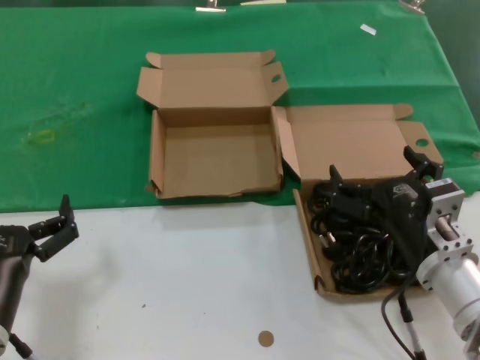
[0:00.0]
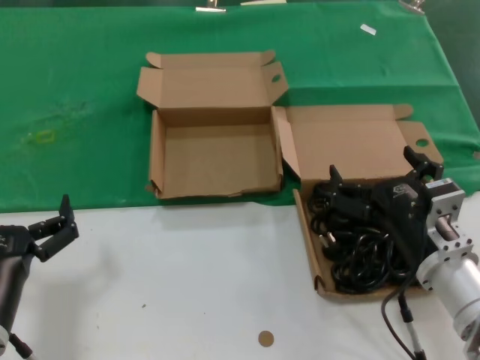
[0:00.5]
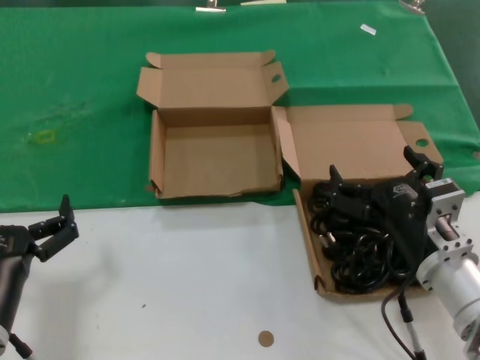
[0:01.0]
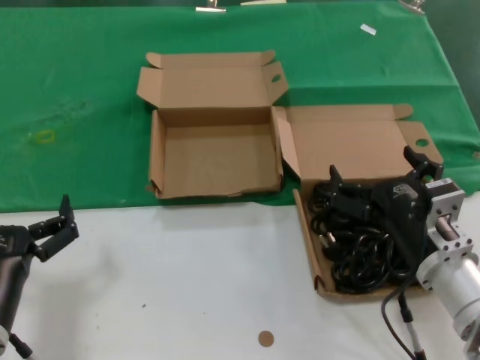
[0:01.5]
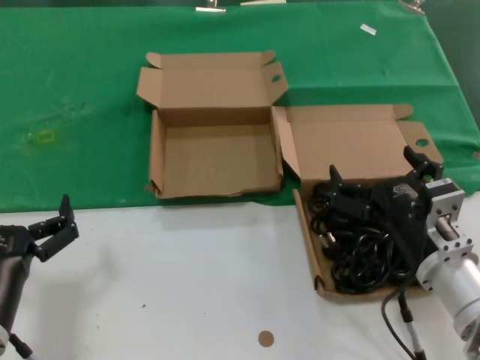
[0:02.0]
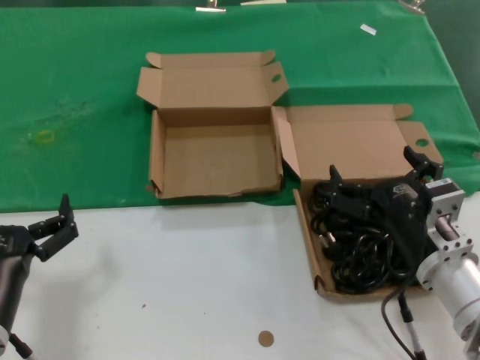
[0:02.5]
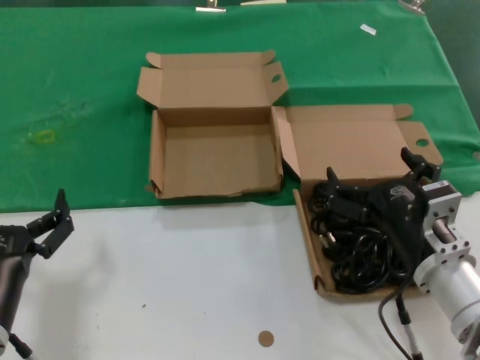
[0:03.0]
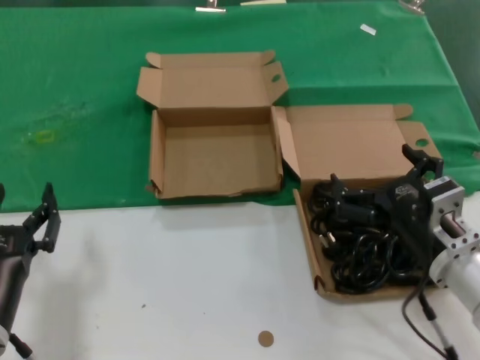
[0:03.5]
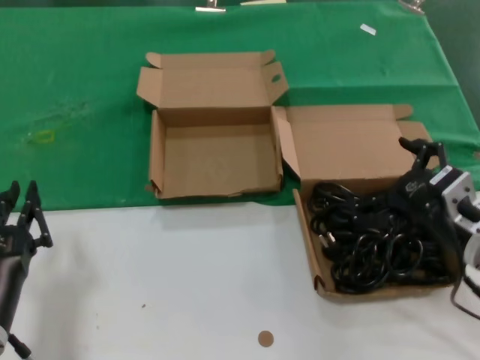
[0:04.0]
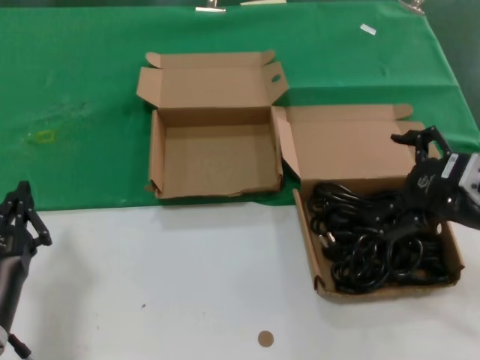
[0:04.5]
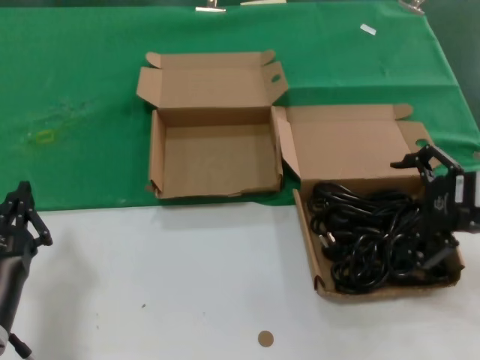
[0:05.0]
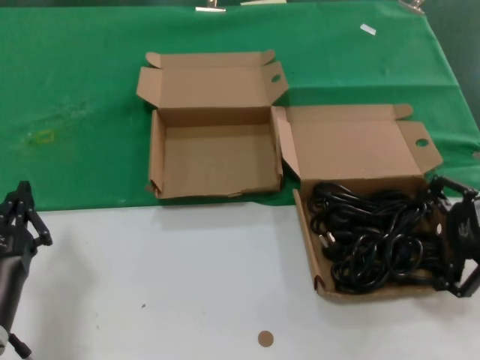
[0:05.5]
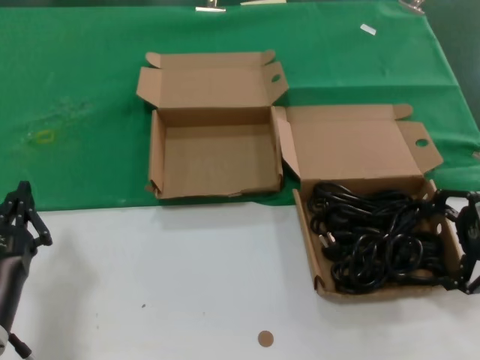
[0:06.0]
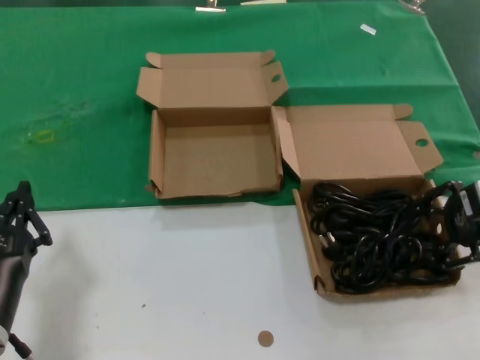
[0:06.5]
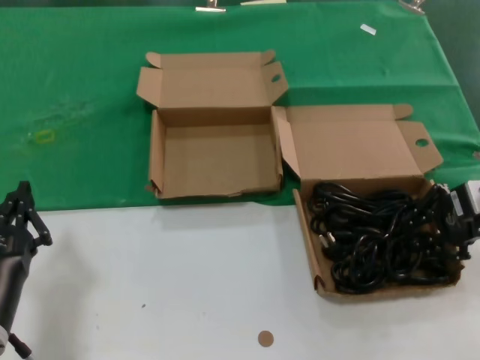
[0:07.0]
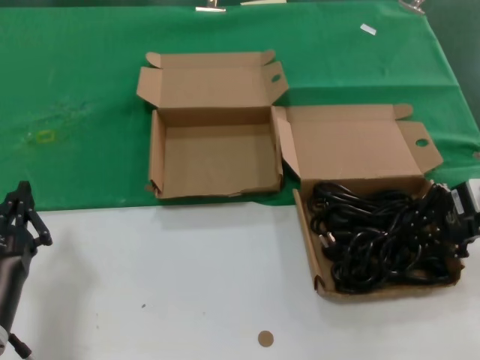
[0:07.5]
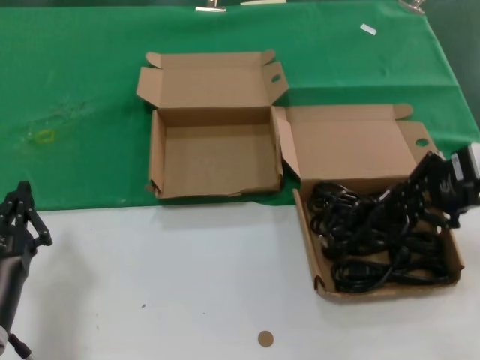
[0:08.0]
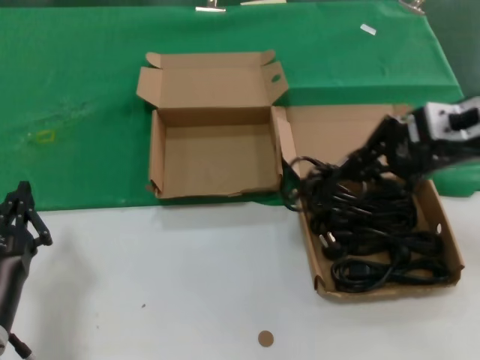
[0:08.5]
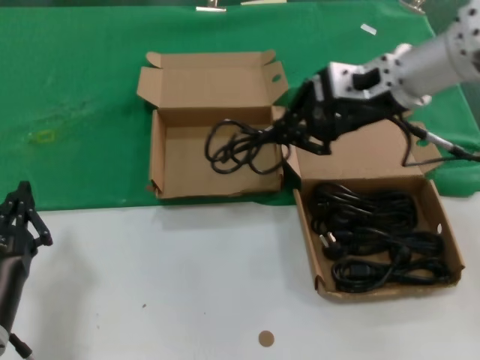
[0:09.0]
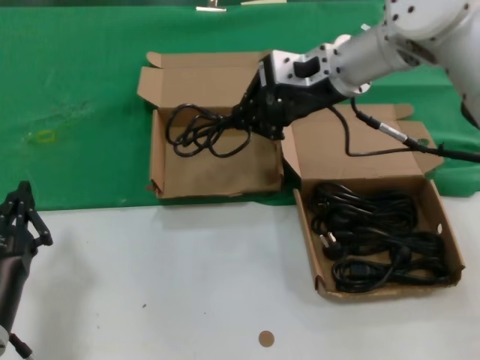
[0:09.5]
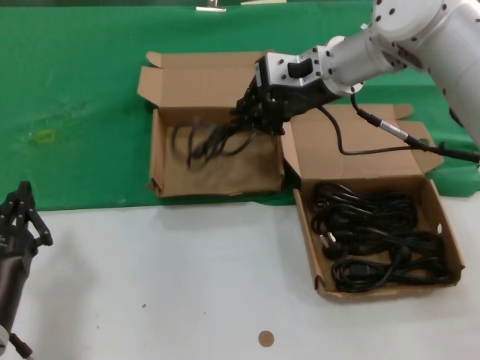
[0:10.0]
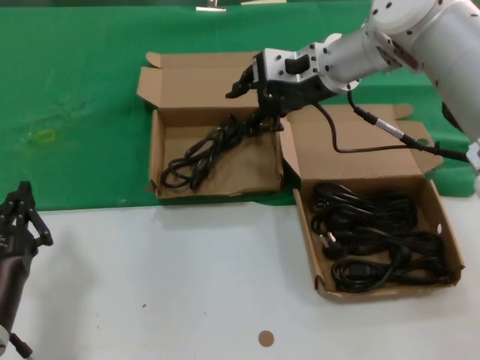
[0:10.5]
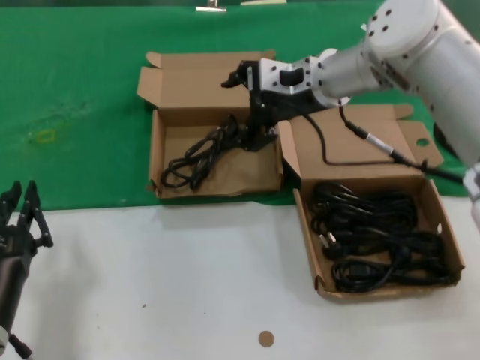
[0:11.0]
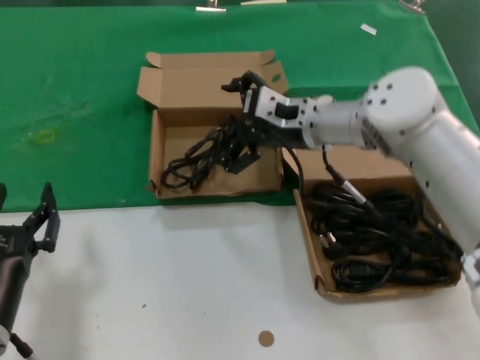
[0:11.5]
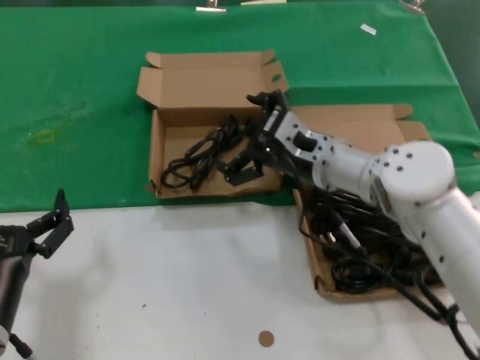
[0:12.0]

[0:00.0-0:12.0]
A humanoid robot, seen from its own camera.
Task of the whole recording: take the parts from the box containing them and put them into an empty box.
Step, 0.0 to 7.5 s: Grasp the data cable.
Step, 8.0 to 10.0 s: Place the data cable in the another box.
0.0 to 2.0 s: The two hands keep their place.
2.0 to 4.0 s: The right hand travels to the right by some 5 cm.
4.0 to 6.0 s: The right hand heads upward and to the right, covering approximately 15 cm.
6.0 to 8.0 s: The right hand changes place by approximately 5 cm.
8.0 to 10.0 s: The right hand is displaced to the left and forward by about 25 cm.
10.0 to 12.0 s: The right hand moves downward and backward, about 15 cm.

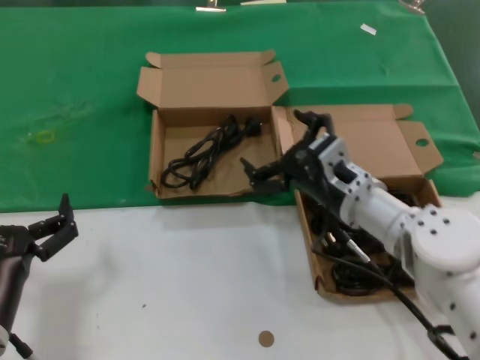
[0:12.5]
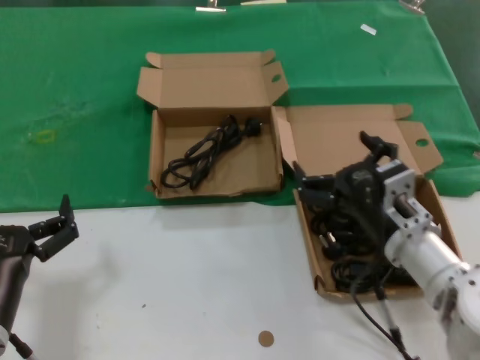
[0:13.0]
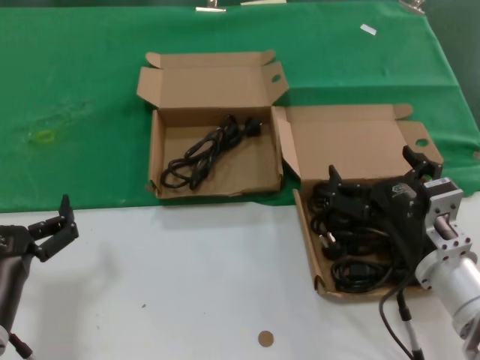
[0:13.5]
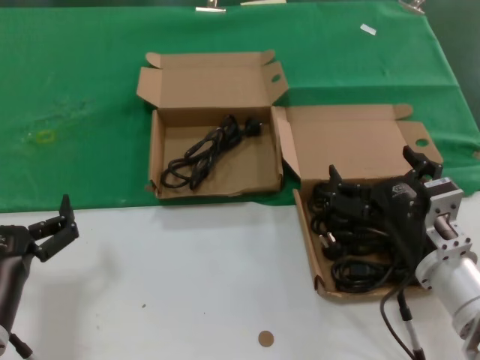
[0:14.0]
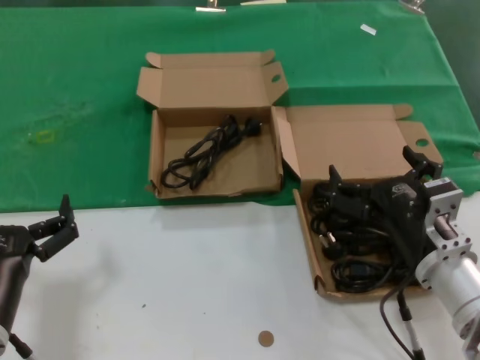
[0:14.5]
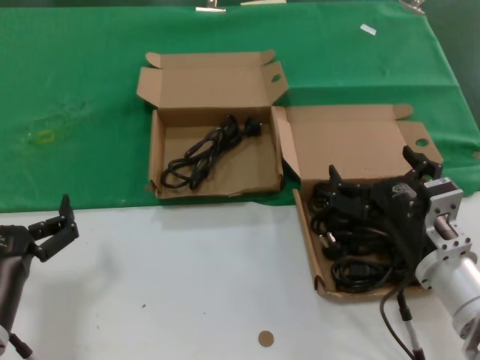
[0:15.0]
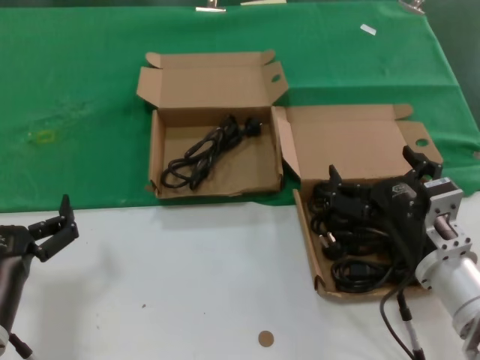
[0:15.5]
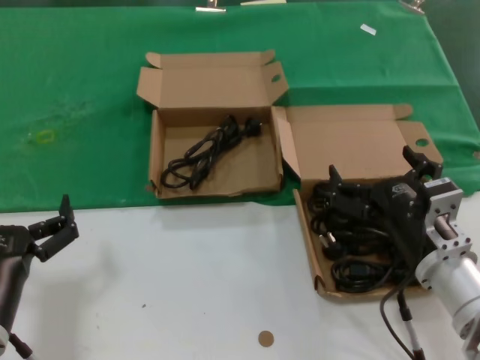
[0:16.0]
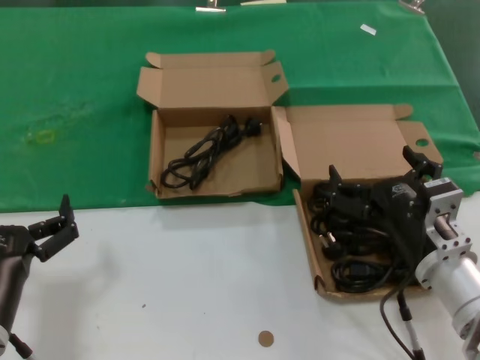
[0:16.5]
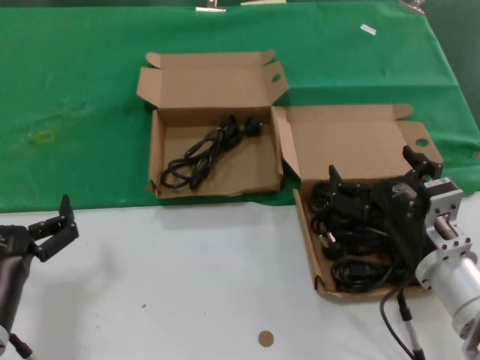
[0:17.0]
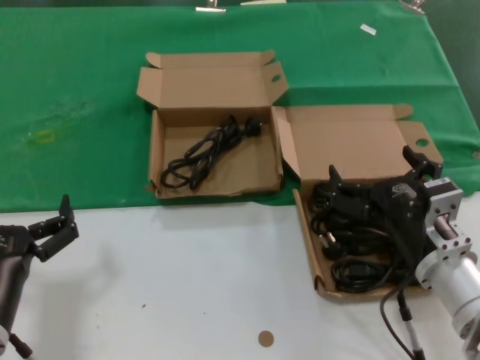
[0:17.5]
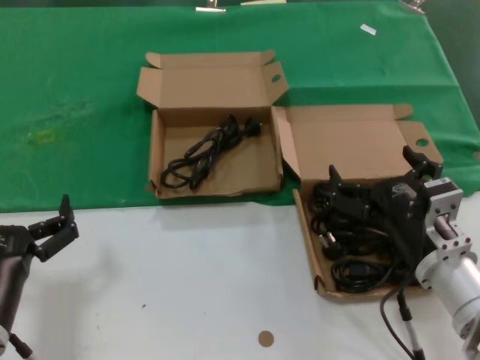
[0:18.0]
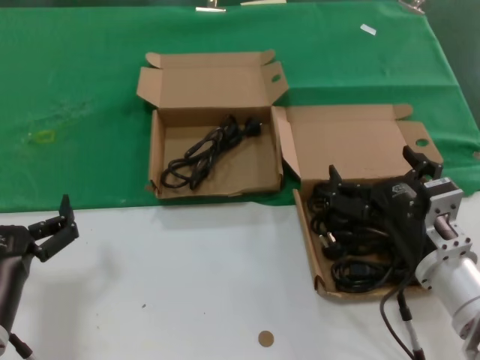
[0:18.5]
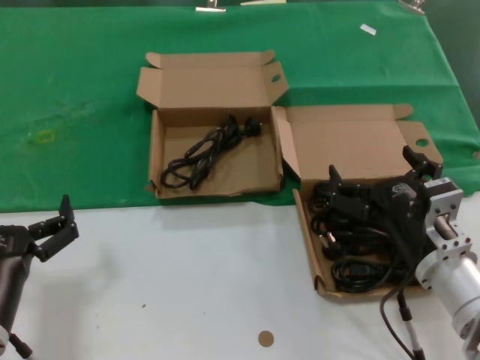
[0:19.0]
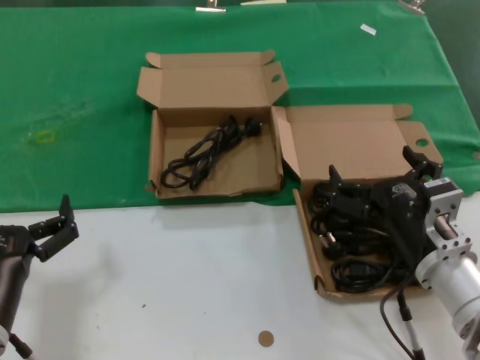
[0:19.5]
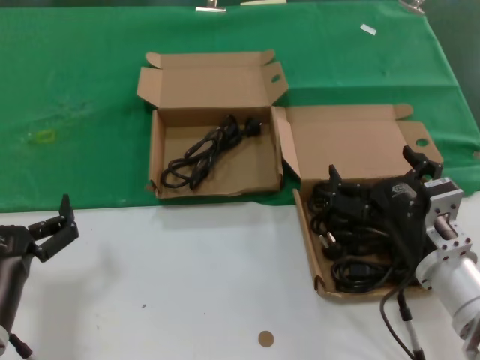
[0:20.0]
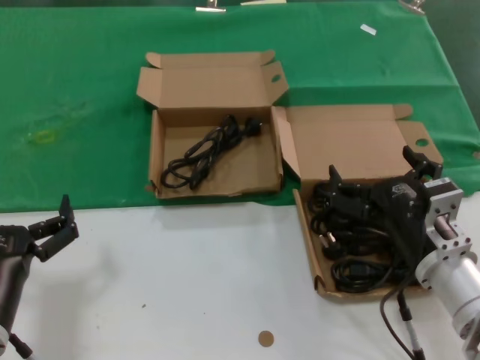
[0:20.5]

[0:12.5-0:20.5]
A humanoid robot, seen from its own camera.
Task of the whole recording: take the parts from the box containing them and put them into an empty box.
12.5 to 14.5 s: The right hand goes approximately 15 cm backward and to the right.
14.5 to 20.5 s: Neither hand changes place.

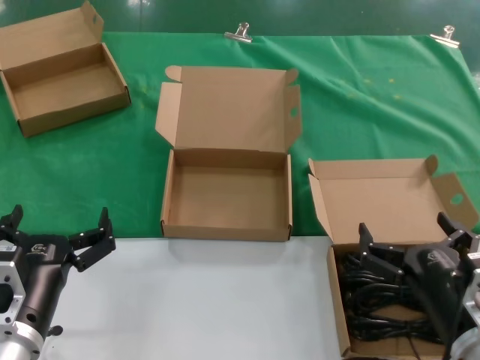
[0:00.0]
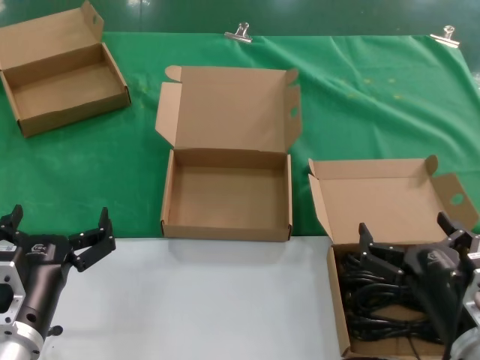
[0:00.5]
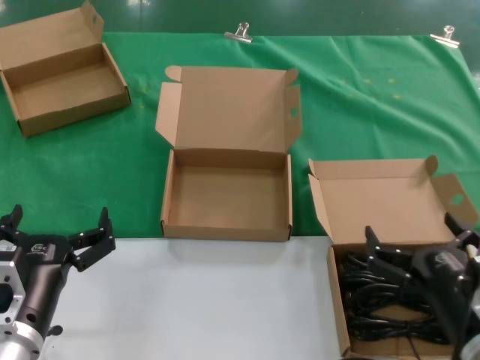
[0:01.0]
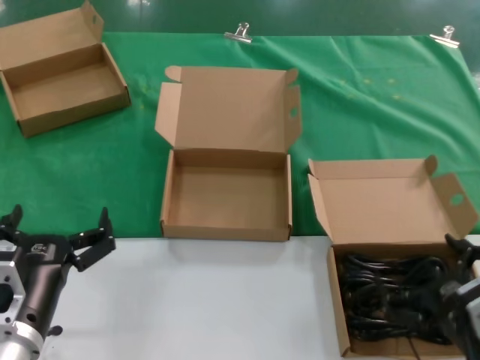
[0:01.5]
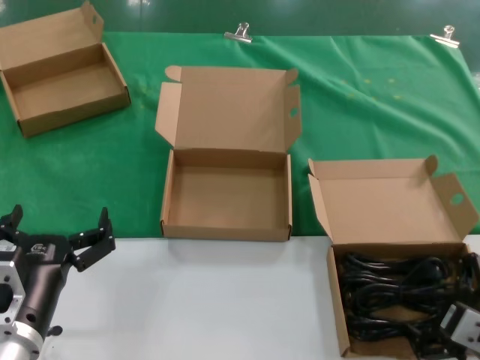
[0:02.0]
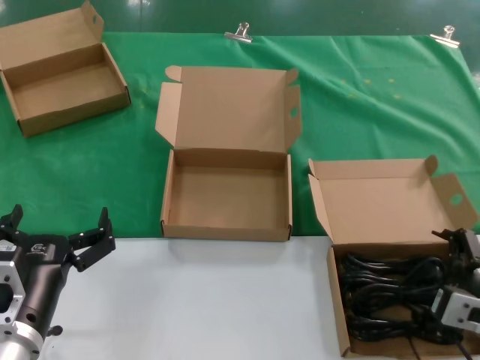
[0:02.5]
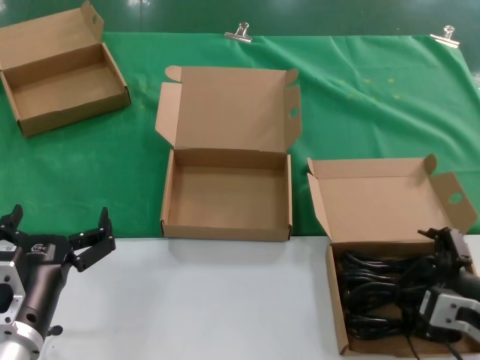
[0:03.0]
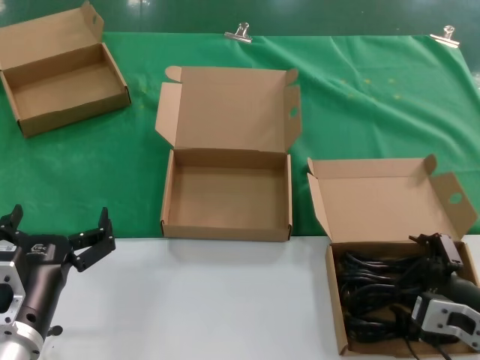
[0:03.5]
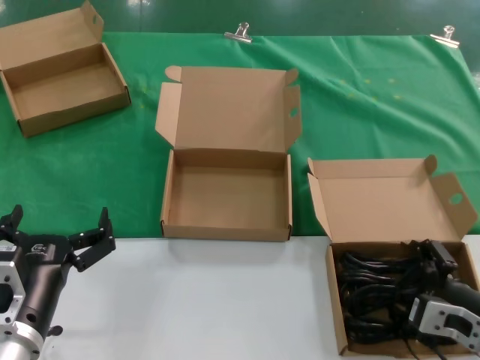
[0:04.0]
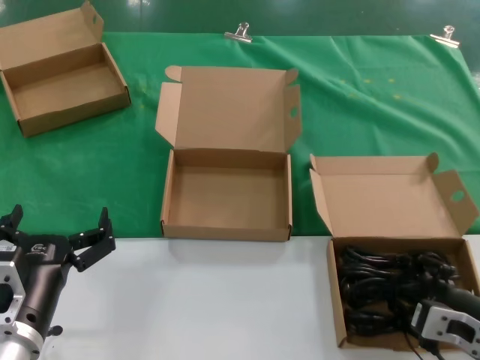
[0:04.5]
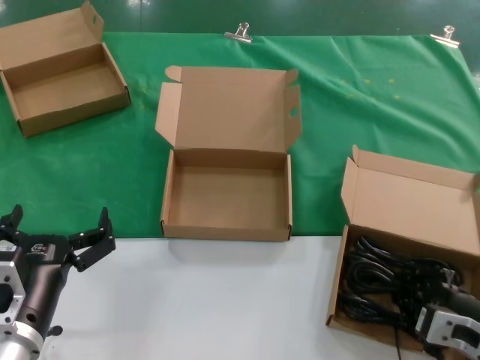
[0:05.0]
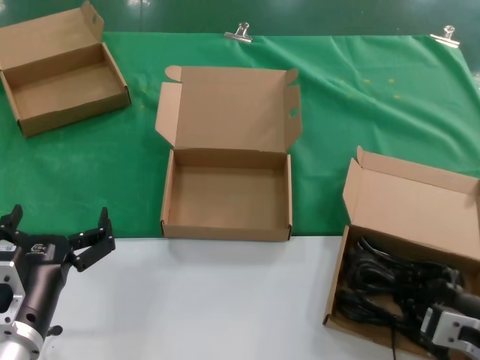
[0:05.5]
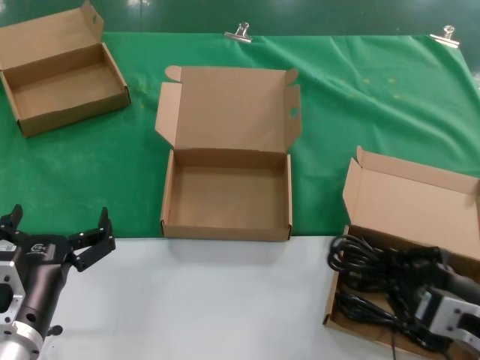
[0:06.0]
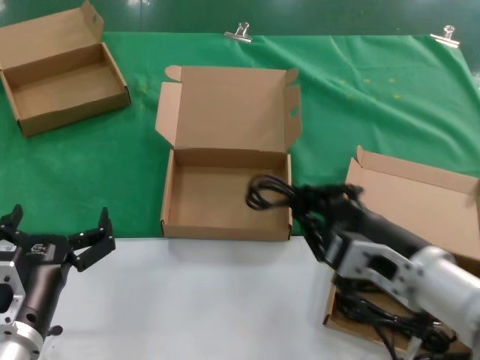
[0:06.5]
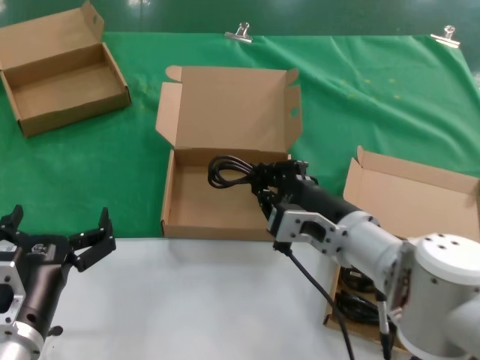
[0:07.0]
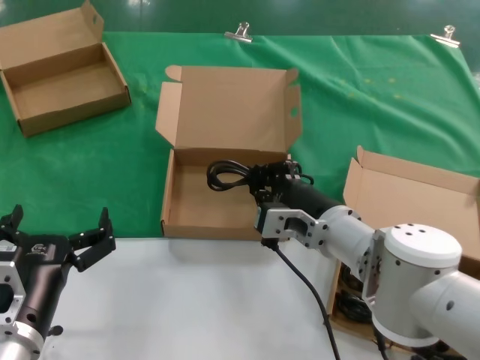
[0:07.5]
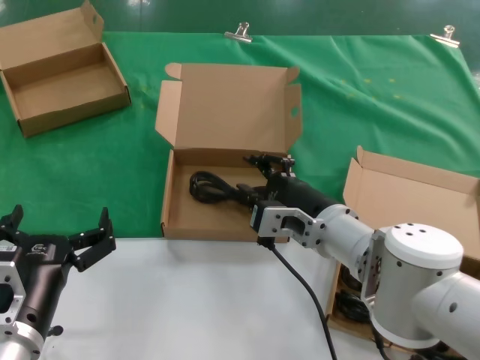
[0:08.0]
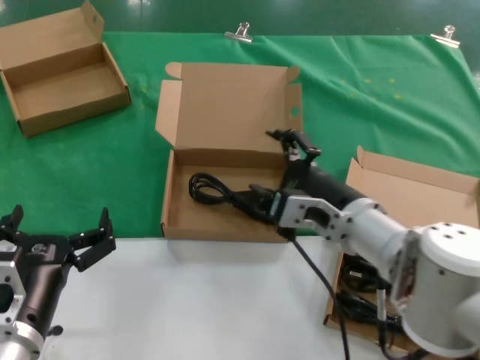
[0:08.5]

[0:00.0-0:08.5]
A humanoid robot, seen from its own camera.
Task of the whole recording: take the parts from the box containing them and put them into an empty box.
Step, 0.0 to 4.5 s: Grasp the data cable.
Step, 5.0 to 7.5 s: Place the data cable in the another box.
0.0 to 2.0 s: The right hand goes approximately 5 cm to the right.
2.0 to 4.0 s: The right hand changes place by about 5 cm.
4.0 to 6.5 s: The right hand shifts some 15 cm to the left and upward.
6.5 to 8.5 s: The right hand goes roughly 10 cm forward and to the left.
